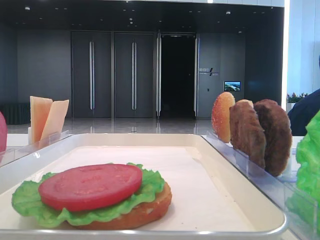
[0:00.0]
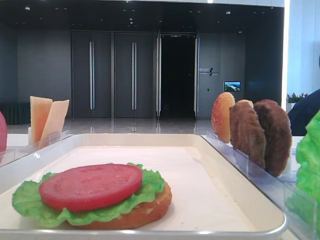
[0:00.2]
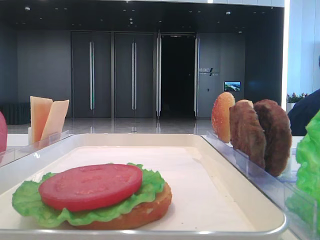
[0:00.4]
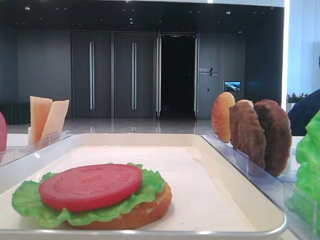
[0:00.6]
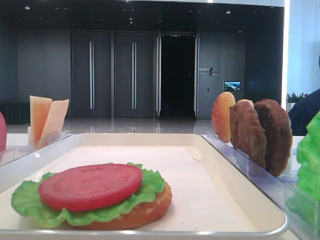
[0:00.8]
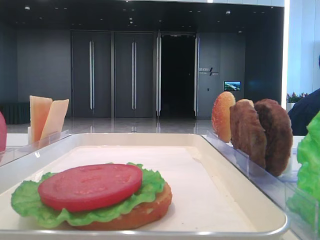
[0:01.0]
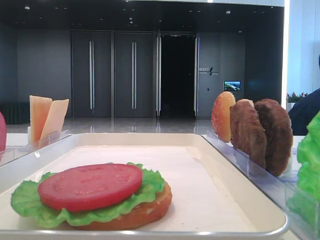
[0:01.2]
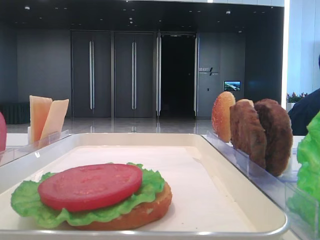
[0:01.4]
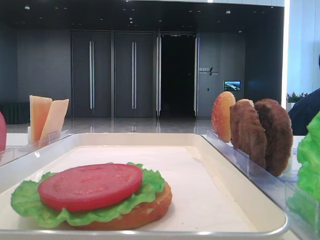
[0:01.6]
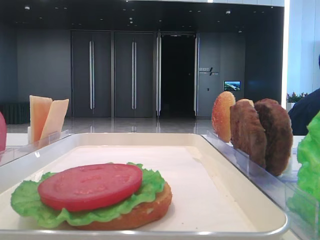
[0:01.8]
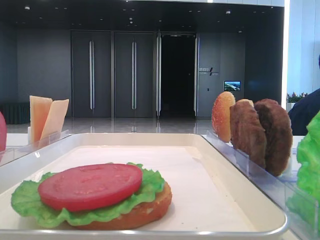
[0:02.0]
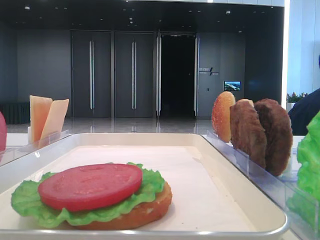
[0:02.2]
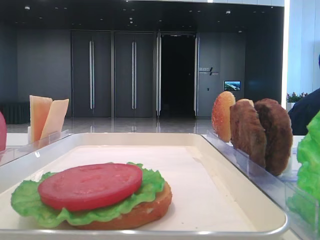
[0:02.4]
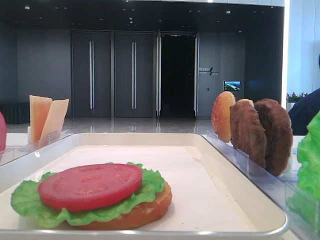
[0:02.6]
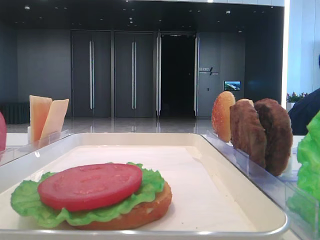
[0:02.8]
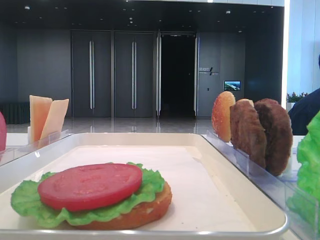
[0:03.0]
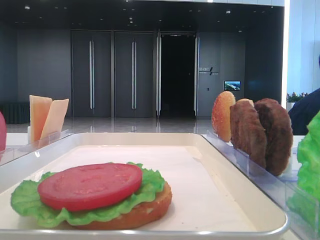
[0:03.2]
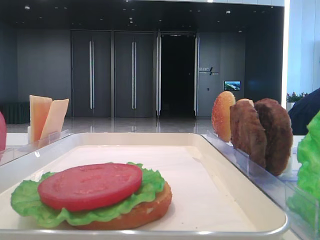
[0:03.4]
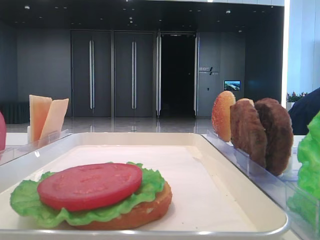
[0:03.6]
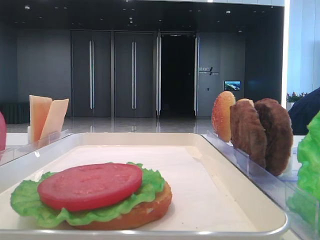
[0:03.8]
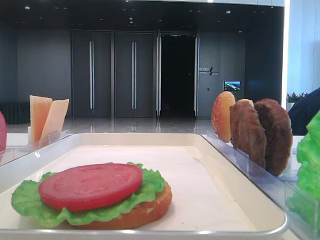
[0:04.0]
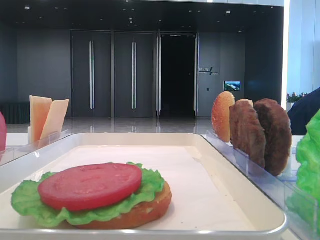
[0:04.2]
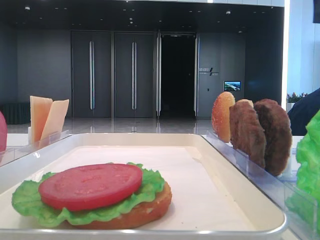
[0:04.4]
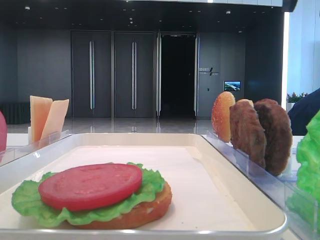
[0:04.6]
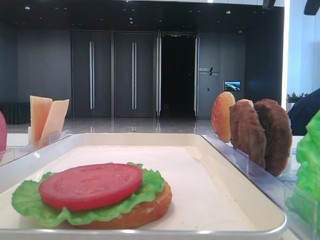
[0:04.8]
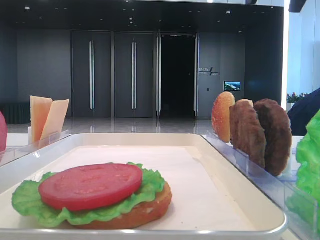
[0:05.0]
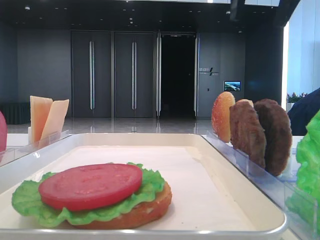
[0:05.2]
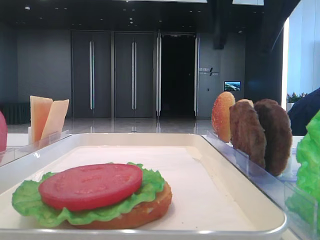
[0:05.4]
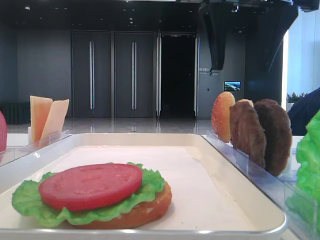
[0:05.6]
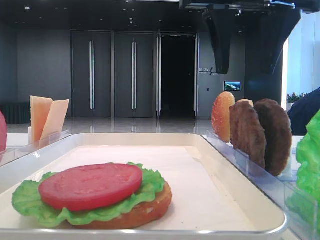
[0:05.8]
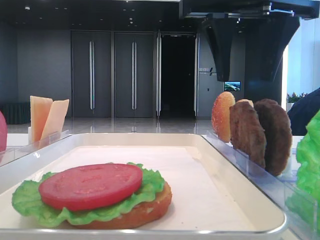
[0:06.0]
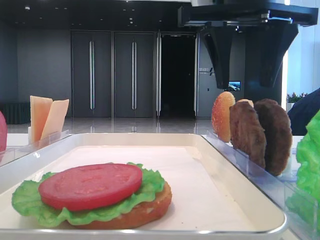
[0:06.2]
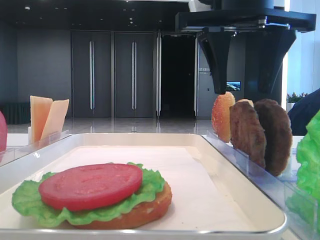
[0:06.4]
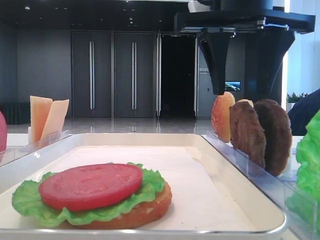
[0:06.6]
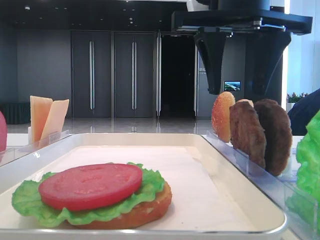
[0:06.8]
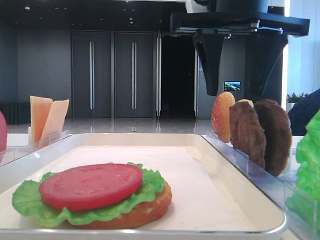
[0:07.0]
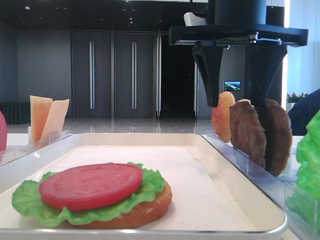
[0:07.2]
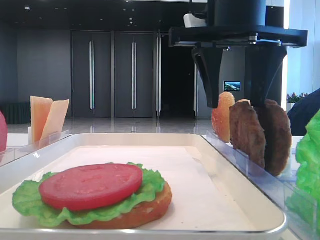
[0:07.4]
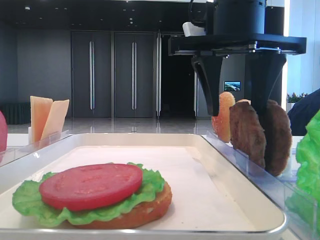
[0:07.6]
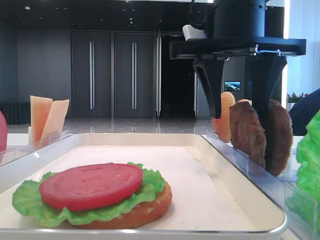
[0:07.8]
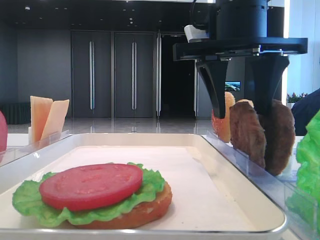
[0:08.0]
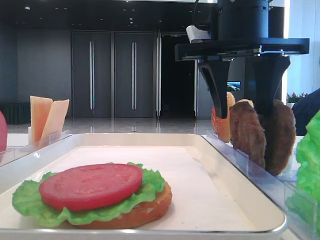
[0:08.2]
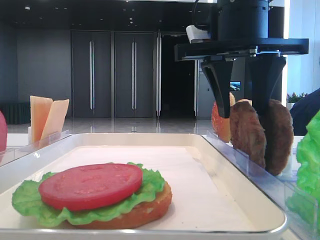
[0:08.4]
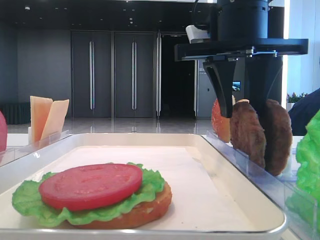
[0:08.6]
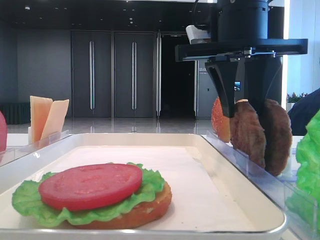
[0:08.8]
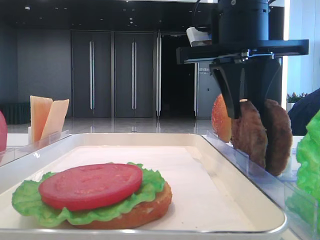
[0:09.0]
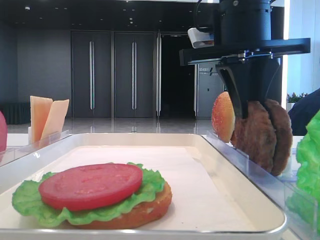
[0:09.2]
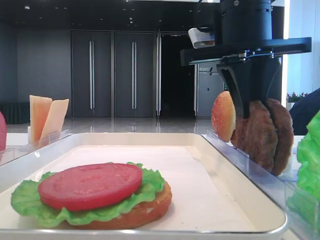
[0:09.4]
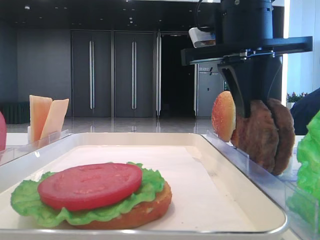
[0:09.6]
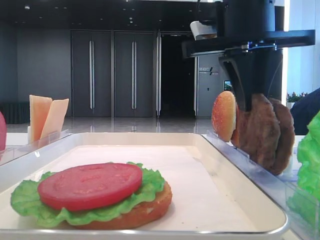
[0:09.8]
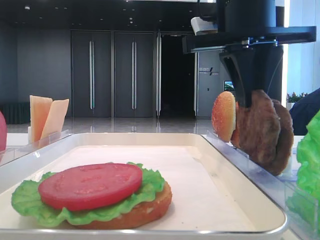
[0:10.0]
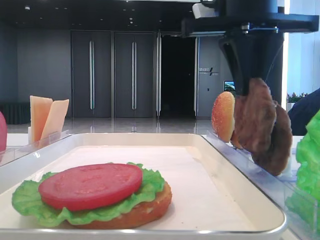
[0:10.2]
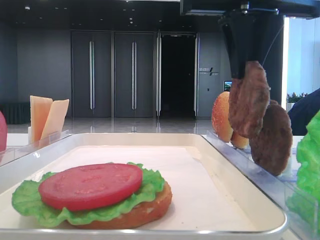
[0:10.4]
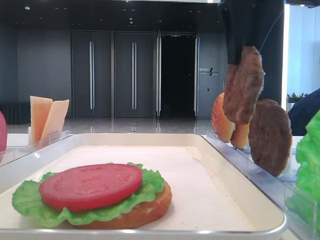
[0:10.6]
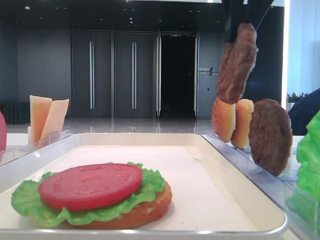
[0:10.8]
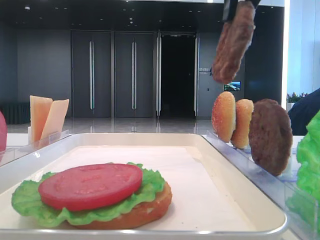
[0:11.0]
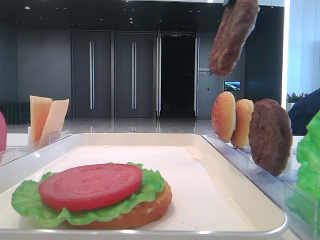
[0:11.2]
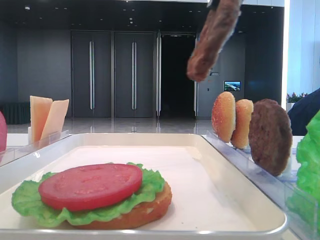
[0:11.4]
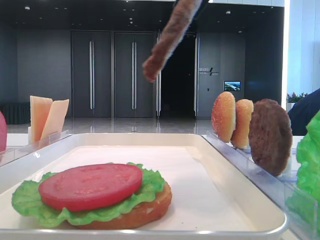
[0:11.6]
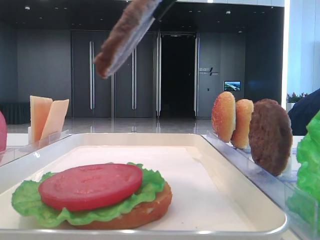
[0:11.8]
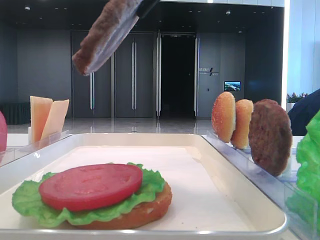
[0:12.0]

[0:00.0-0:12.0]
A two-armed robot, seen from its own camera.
Step, 0:00.0 to 0:09.2: Grab the patty with the right hand.
0:03.0 to 0:04.4: The right gripper heads forward and to the left, covering some 10 cm.
0:04.4 to 0:06.0: The right gripper moves to the left and downward, approximately 15 cm.
0:06.0 to 0:07.6: The grippers make only small movements.
0:07.6 to 0:09.0: The right gripper closes.
0:09.0 to 0:10.4: The grippers stay close to where they were, moving slightly.
0:10.4 to 0:12.0: The right gripper travels backward by approximately 10 cm.

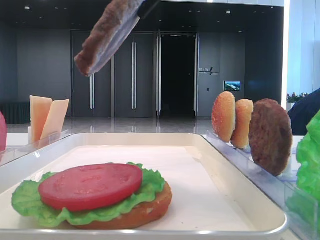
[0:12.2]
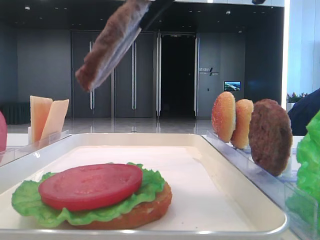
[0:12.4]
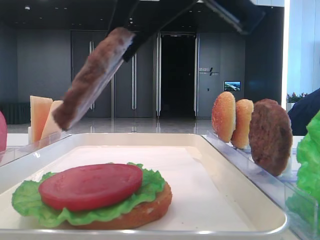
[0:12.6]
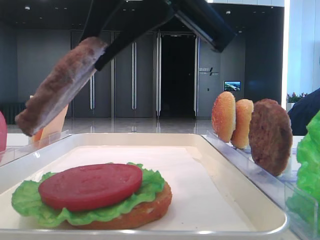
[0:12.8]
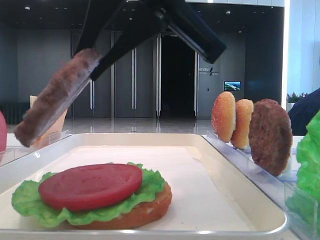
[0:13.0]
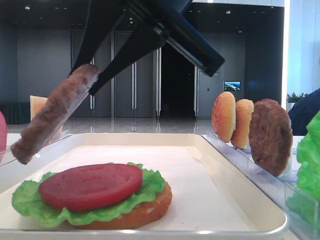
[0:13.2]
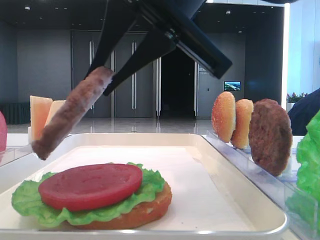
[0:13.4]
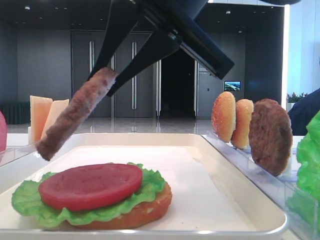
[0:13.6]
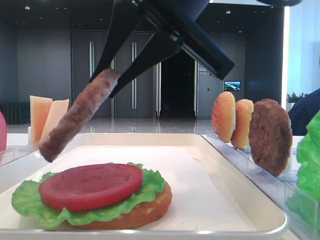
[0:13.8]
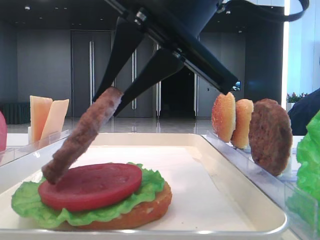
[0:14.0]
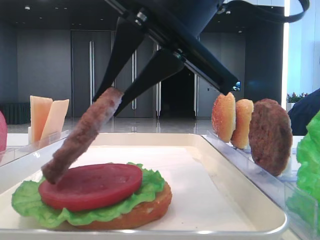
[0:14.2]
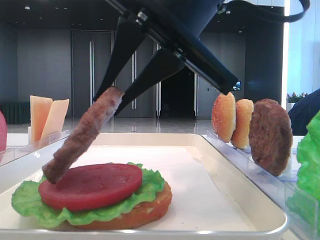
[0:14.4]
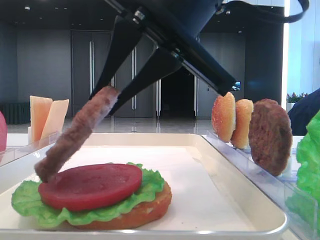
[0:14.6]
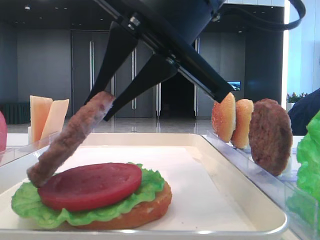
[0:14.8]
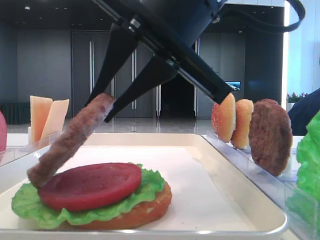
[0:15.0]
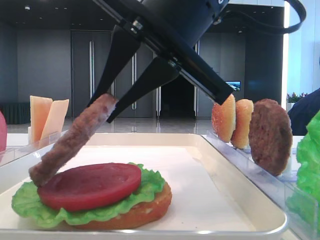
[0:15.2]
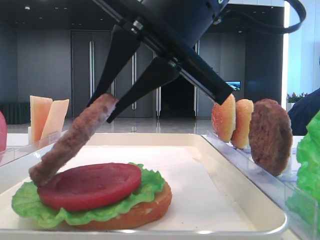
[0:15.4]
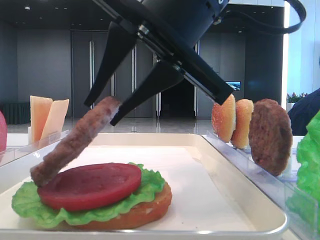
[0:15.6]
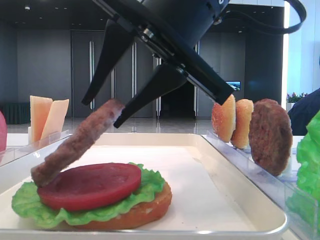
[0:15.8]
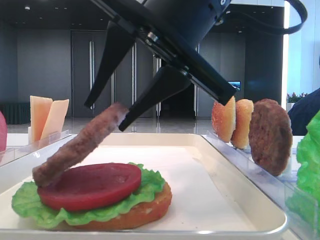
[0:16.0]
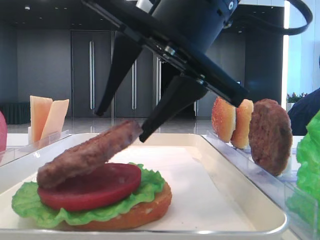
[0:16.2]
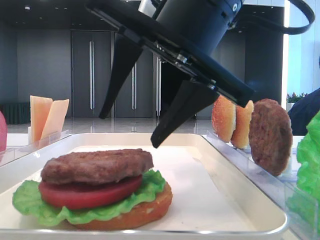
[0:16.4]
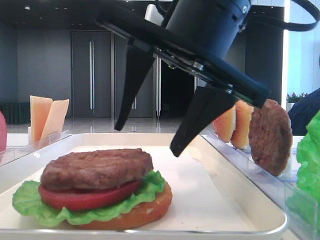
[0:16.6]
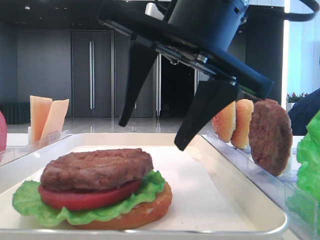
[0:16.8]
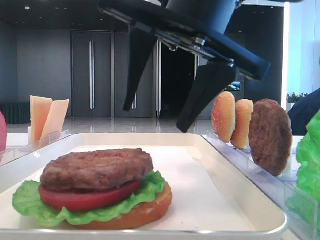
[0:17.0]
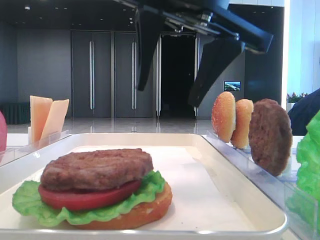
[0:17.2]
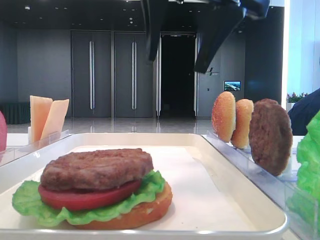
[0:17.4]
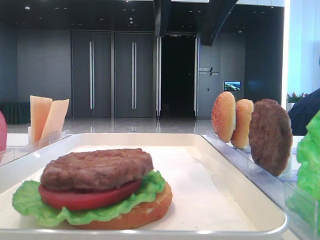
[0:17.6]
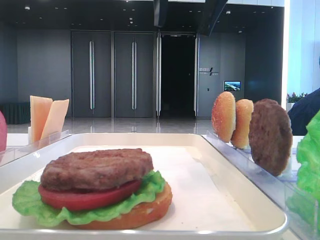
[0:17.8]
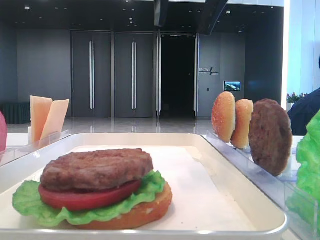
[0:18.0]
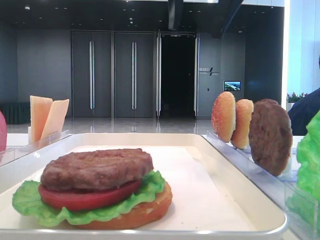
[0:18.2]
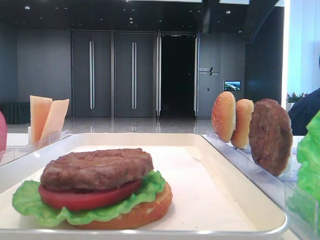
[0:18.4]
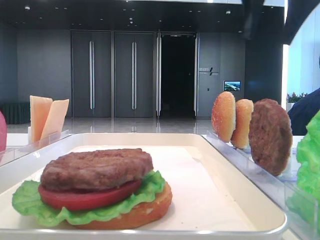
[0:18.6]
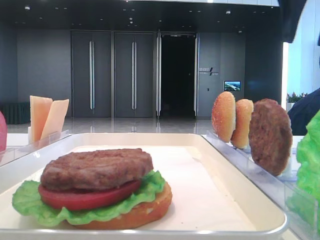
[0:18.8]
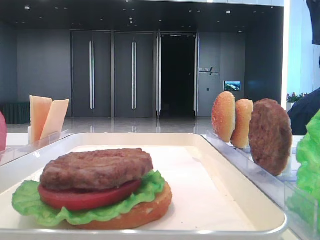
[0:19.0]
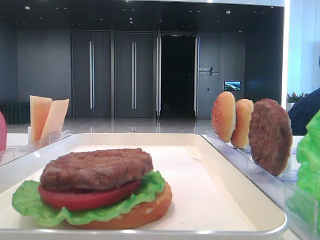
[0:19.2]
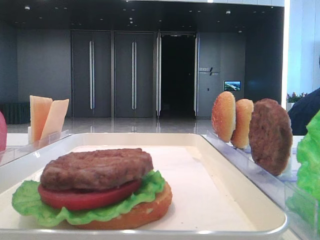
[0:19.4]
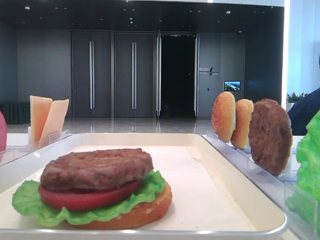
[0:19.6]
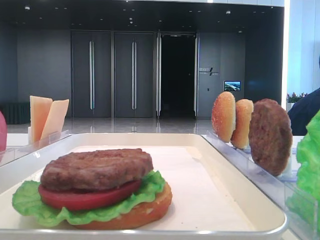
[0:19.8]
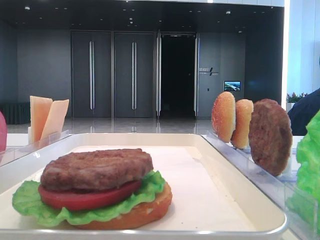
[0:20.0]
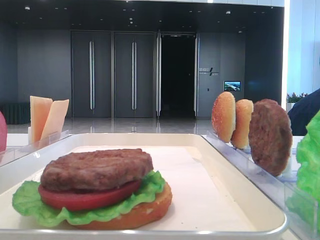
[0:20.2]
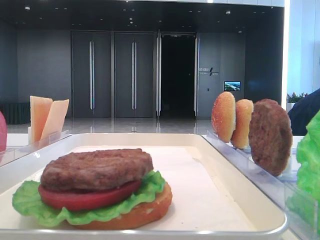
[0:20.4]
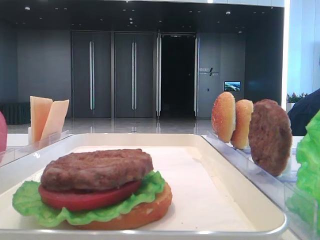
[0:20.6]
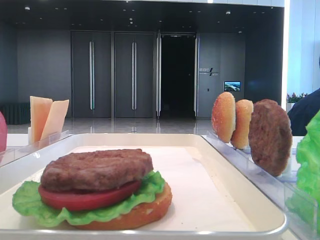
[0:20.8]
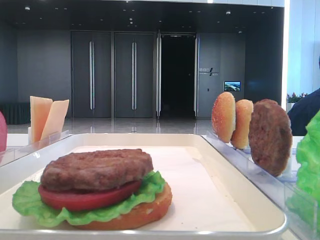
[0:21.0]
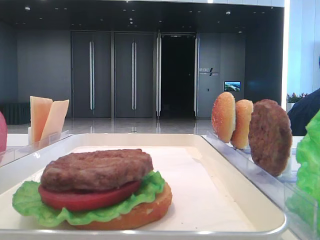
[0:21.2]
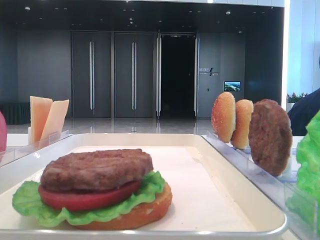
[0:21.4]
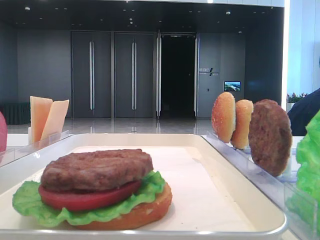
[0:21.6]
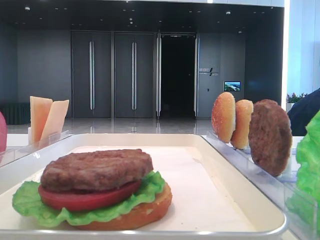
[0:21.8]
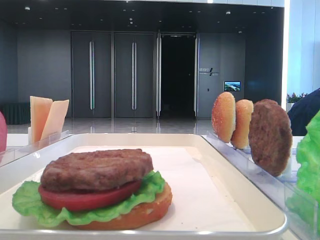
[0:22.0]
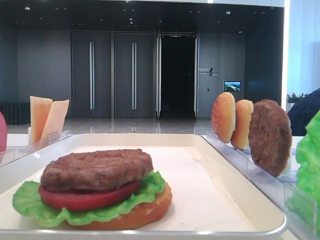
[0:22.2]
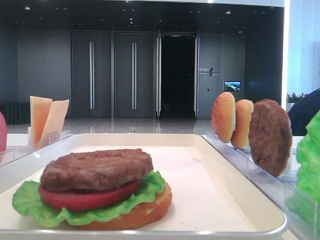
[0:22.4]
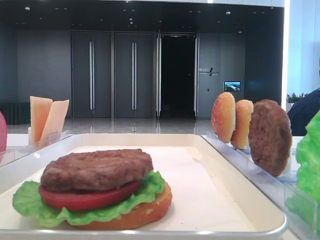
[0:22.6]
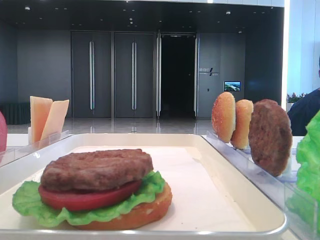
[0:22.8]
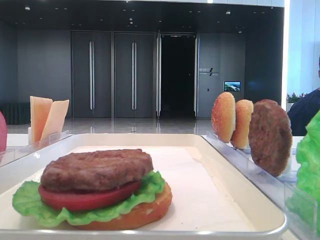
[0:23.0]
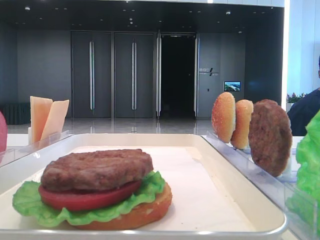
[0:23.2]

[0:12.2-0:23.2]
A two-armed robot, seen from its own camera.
Step, 0:12.2 to 0:16.4: Place the patty on the tomato slice with the right hand.
0:12.2 to 0:13.8: The right gripper goes some 5 cm downward.
0:13.8 to 0:15.4: The grippers move only a little.
0:15.4 to 0:17.0: The right gripper opens.
0:17.0 to 0:18.4: The right gripper is displaced upward, forward and to the right by roughly 15 cm.
